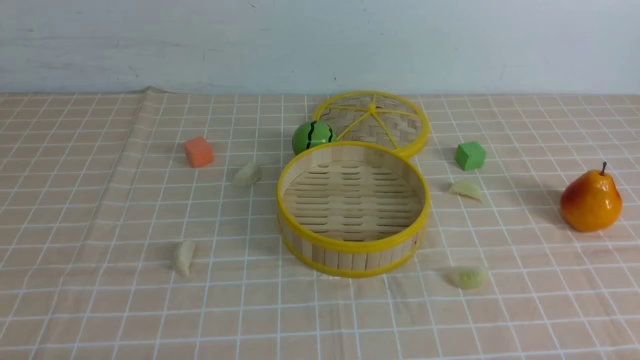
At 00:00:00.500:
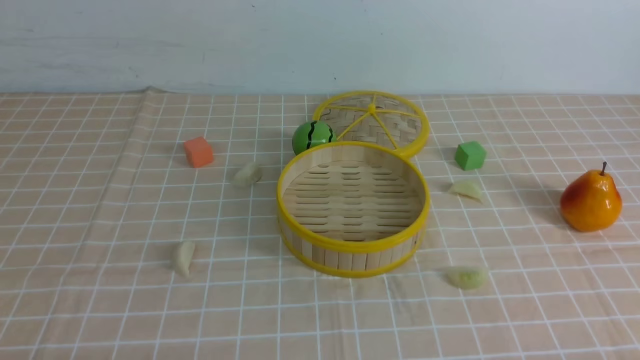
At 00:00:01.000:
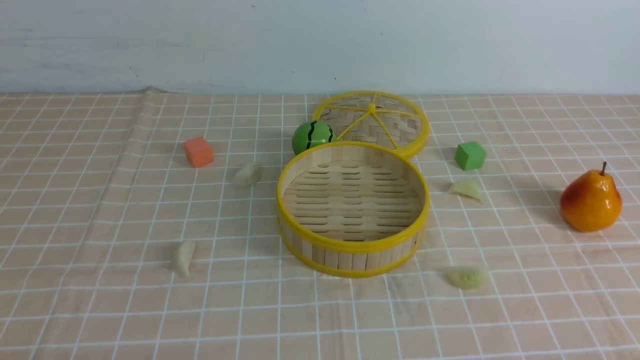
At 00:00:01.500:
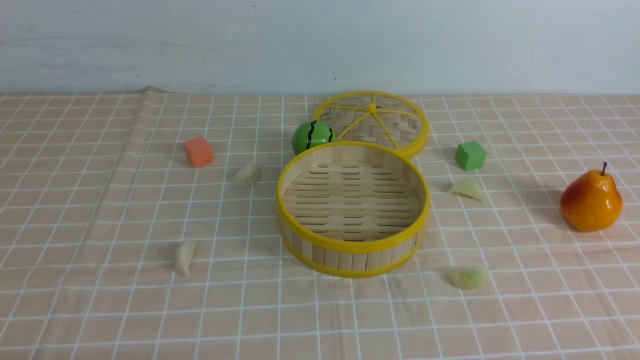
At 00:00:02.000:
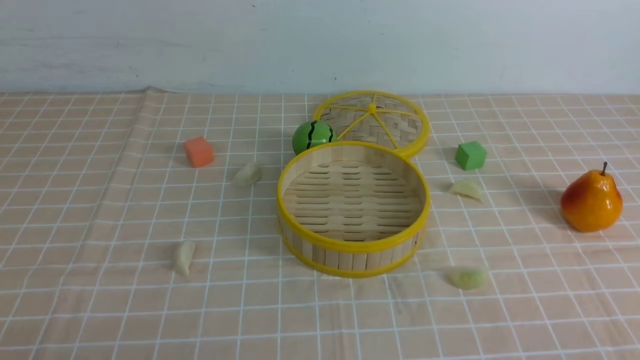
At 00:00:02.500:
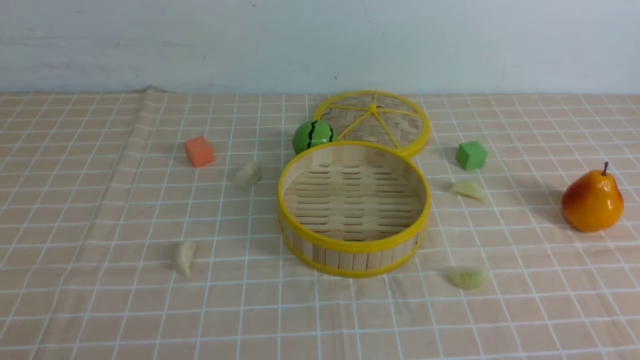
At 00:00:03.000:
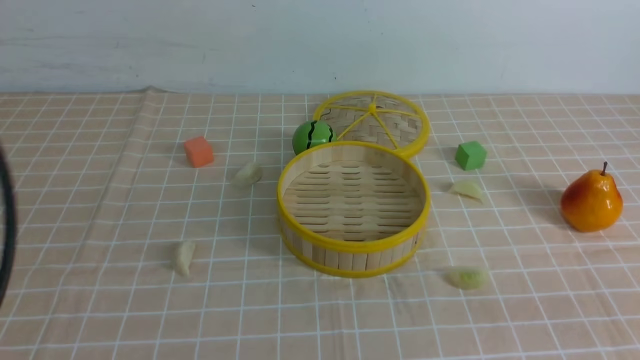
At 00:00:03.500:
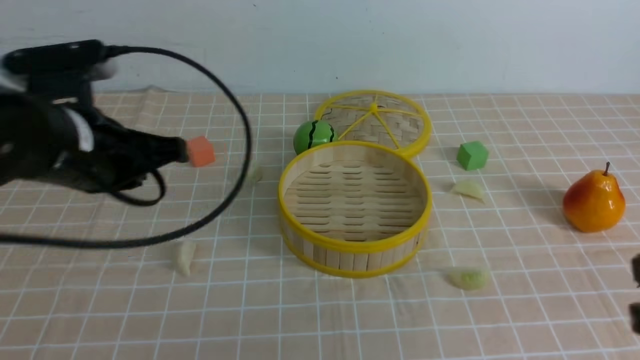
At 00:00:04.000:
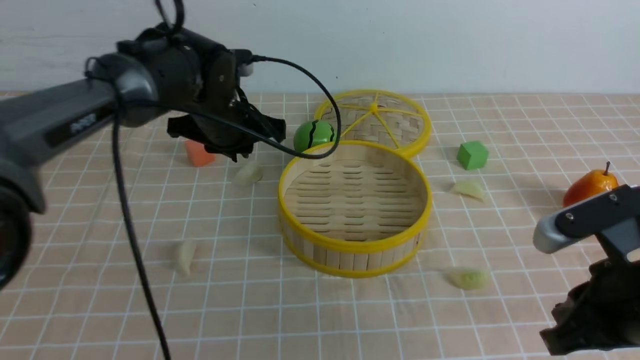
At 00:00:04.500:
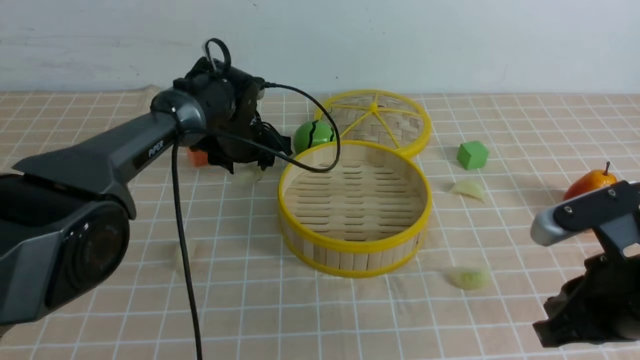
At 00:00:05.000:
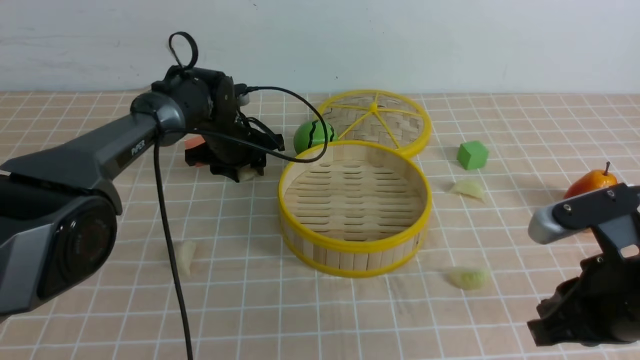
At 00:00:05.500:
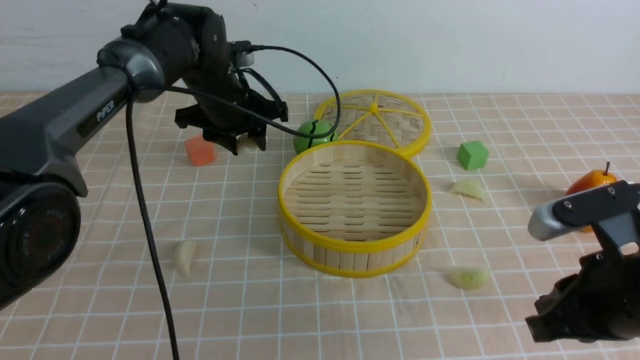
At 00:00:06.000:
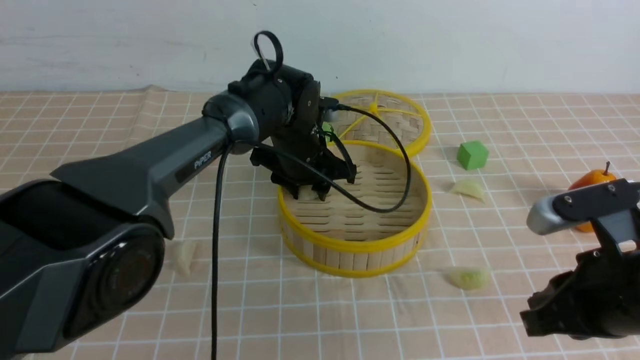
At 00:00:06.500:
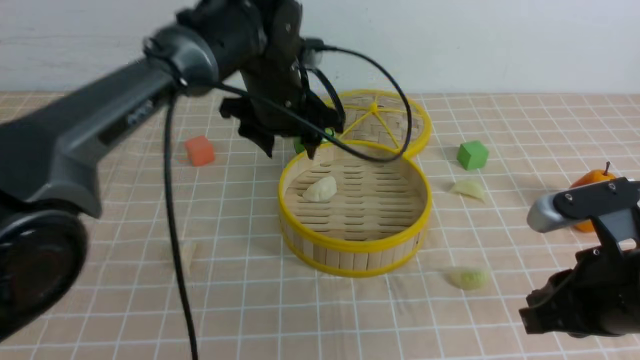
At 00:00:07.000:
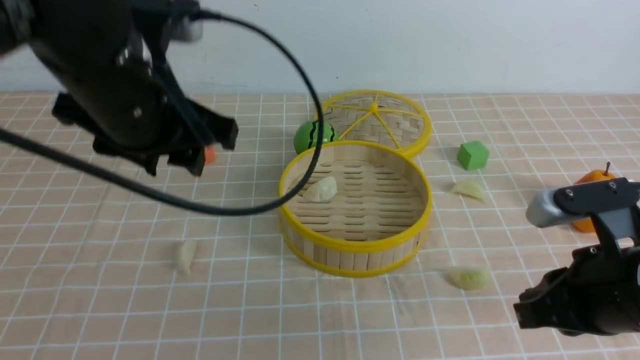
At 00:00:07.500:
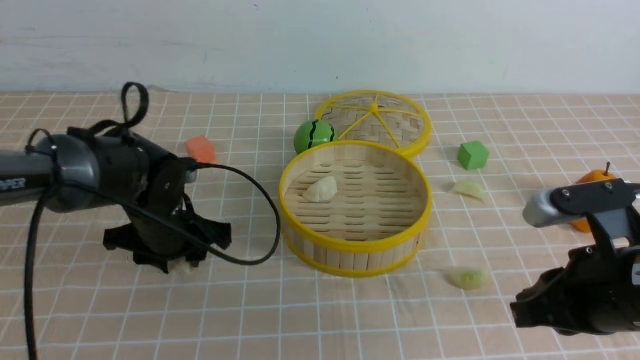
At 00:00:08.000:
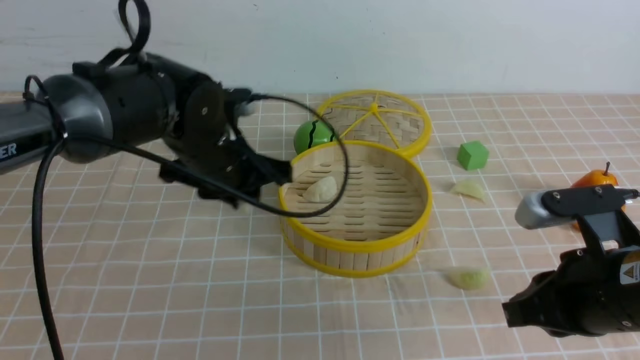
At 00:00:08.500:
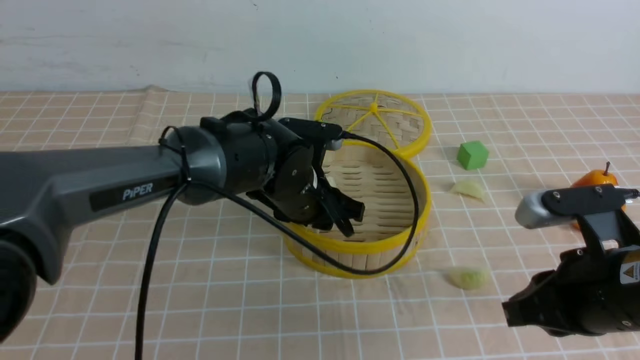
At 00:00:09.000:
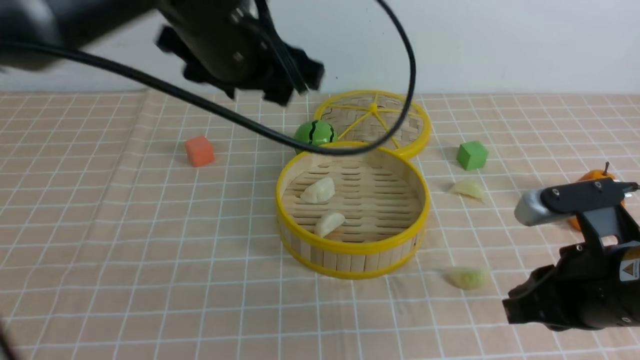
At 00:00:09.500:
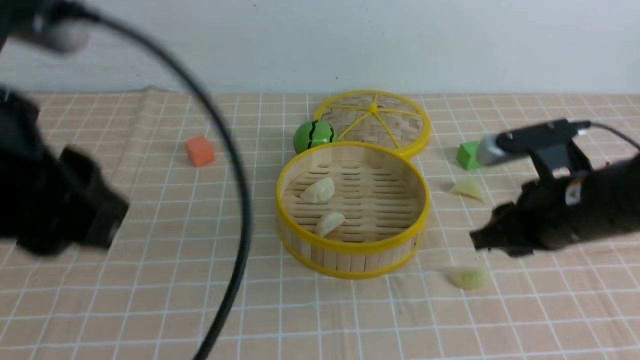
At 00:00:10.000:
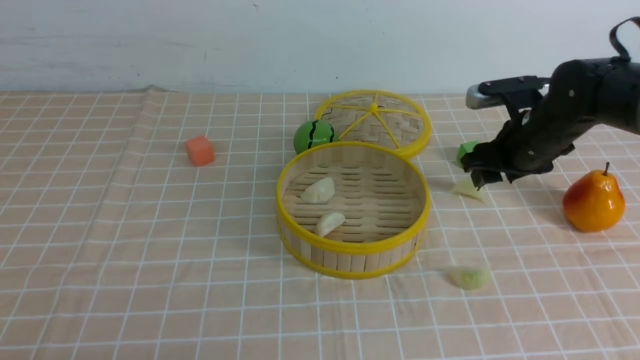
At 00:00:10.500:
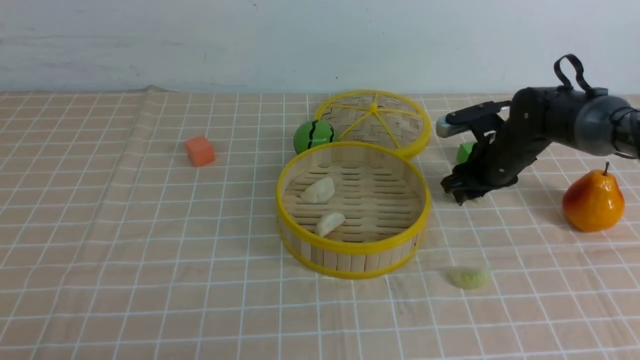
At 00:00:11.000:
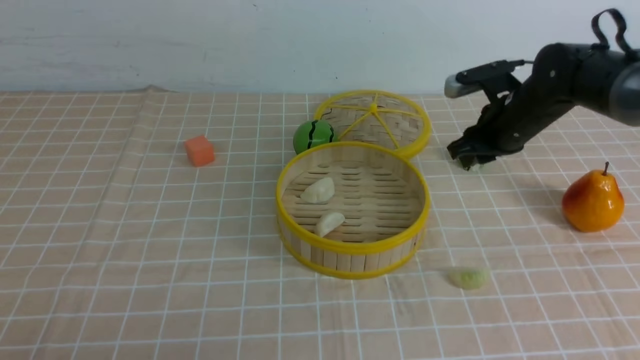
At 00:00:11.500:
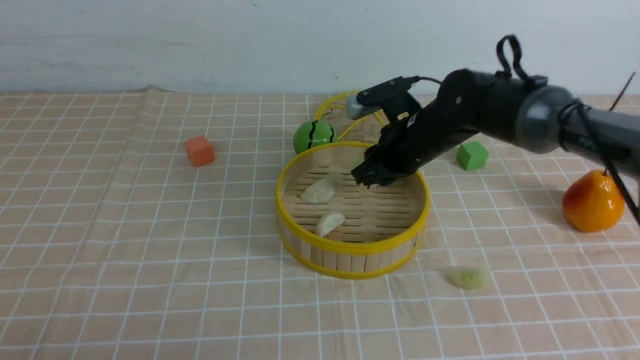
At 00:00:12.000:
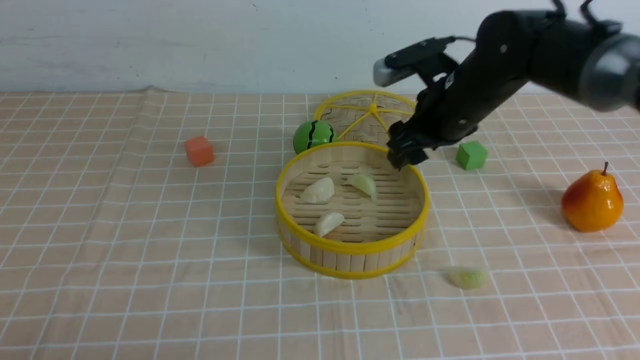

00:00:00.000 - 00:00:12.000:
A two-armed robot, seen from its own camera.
Task of the whole recording: put the dumplings into the steamer on the table with the brown tablecloth.
Step, 00:00:00.000 - 00:00:04.500: use the left arm to grab a dumpling.
Step, 00:00:05.000 - 00:00:06.500: use the left arm to put the dumpling into the steamer.
Step, 00:00:07.000 - 00:00:07.500: use the left arm to grab a dumpling.
Step, 00:00:08.000 - 00:00:08.500: use the left arm to put the dumpling into the steamer.
Step, 00:00:09.000 - 00:00:10.500: use the right arm to grab a dumpling.
Step, 00:00:11.000 - 00:00:12.000: use the right arm to put the dumpling into the steamer.
00:00:02.000 - 00:00:04.000: The right gripper is displaced forward and to the left by roughly 15 cm; the left gripper moves forward, approximately 40 cm, and closes and opens again.
00:00:04.000 - 00:00:06.000: The left gripper travels to the right by some 10 cm.
00:00:06.000 - 00:00:08.000: The left gripper swings up and down, some 15 cm each way, with 2 reversals.
00:00:08.000 - 00:00:10.000: The left gripper goes about 35 cm backward and to the left, and opens and closes again; the right gripper moves forward, some 25 cm, and opens up.
00:00:10.000 - 00:00:12.000: The right gripper heads to the left, covering roughly 10 cm, and closes, then reopens.

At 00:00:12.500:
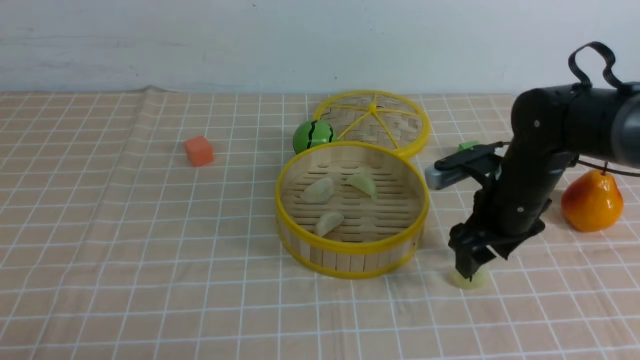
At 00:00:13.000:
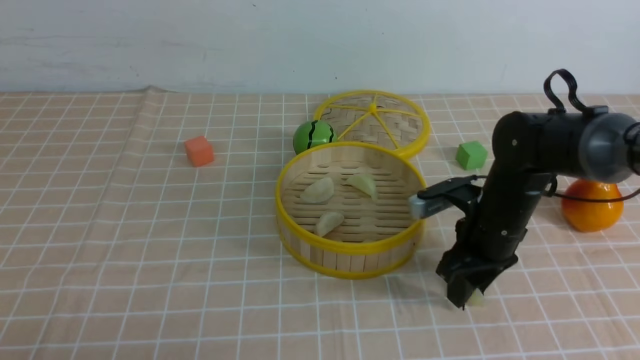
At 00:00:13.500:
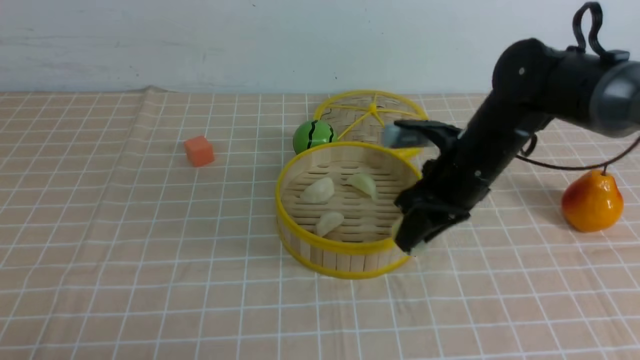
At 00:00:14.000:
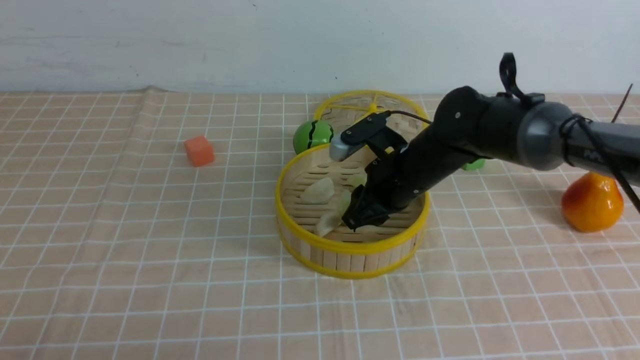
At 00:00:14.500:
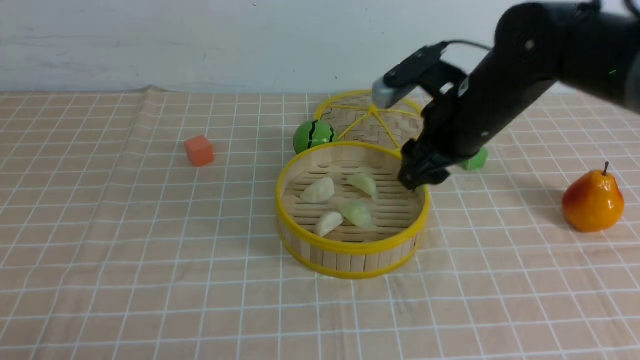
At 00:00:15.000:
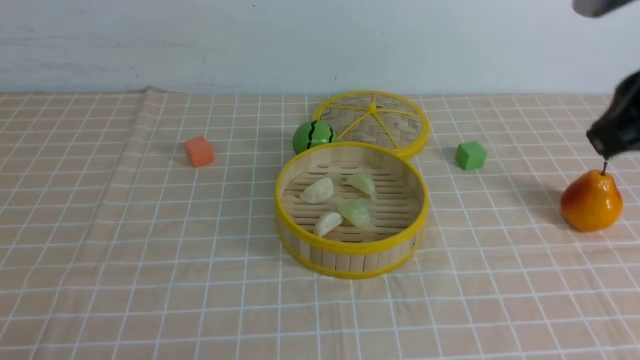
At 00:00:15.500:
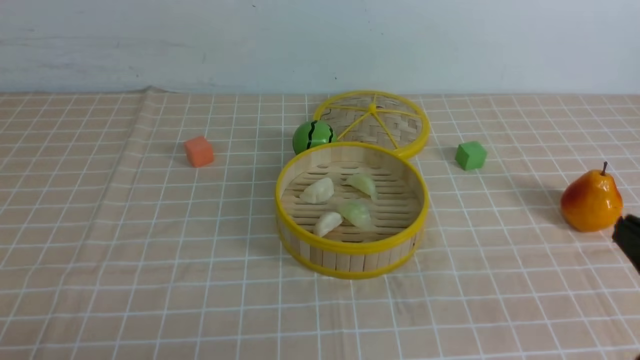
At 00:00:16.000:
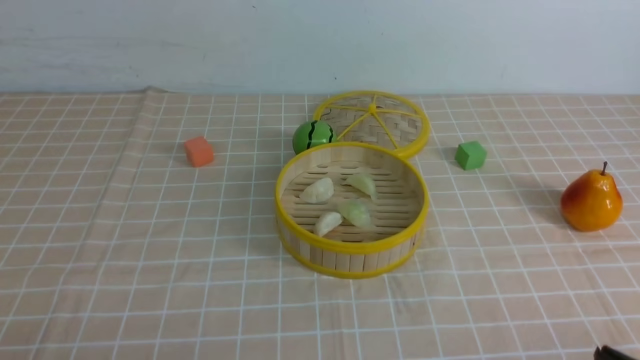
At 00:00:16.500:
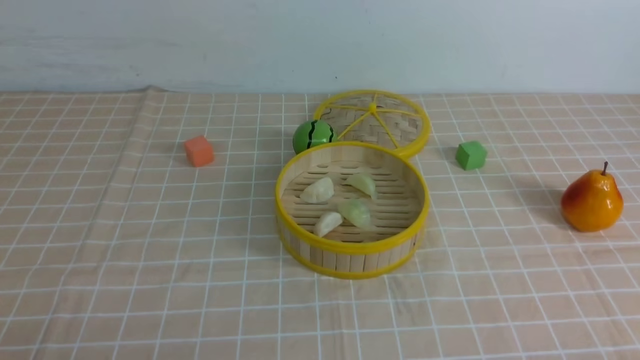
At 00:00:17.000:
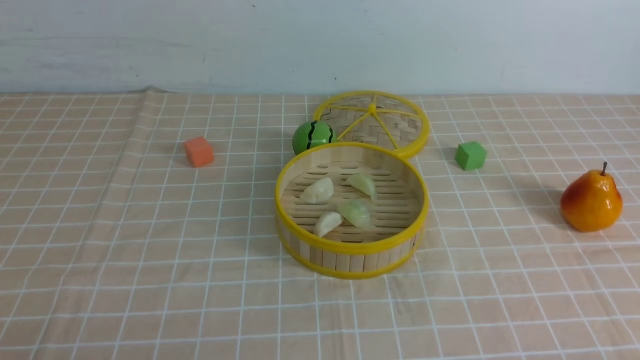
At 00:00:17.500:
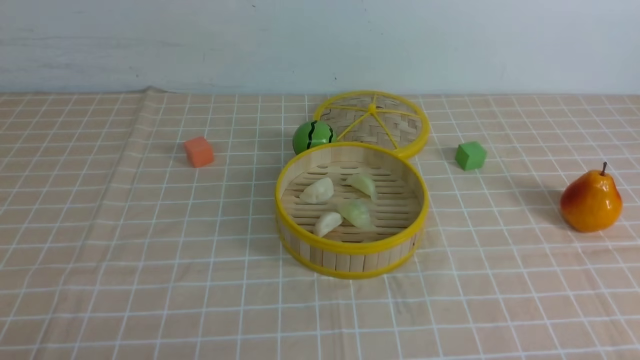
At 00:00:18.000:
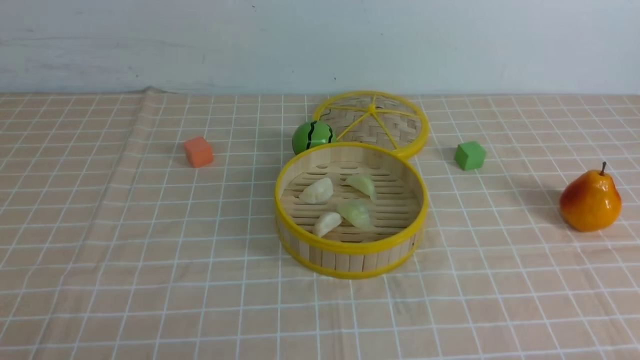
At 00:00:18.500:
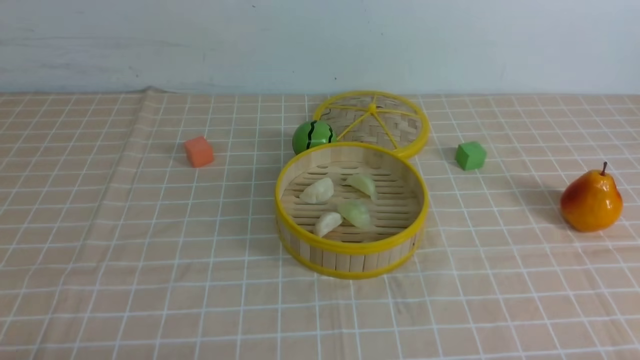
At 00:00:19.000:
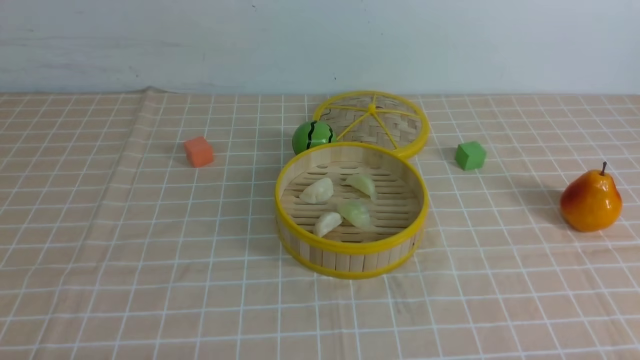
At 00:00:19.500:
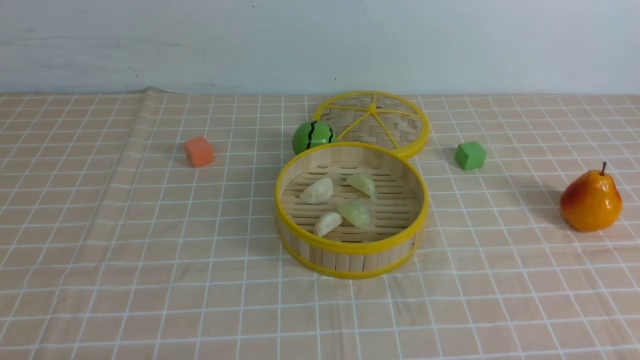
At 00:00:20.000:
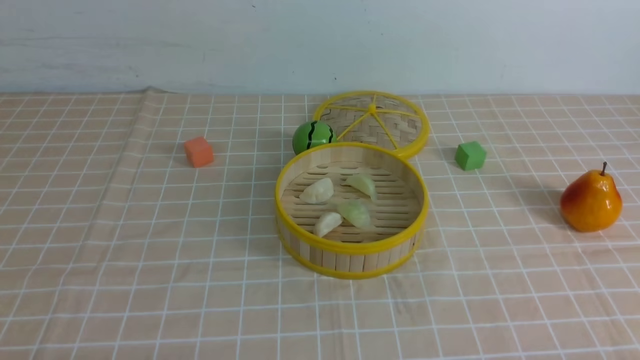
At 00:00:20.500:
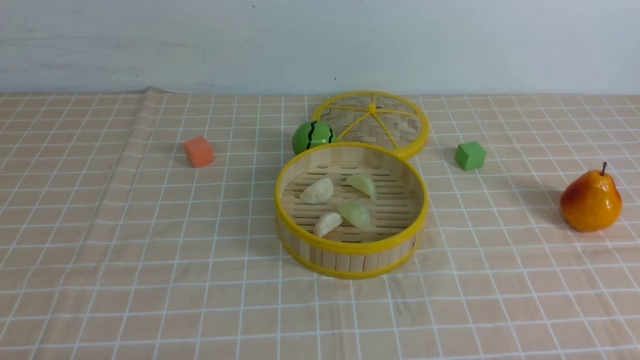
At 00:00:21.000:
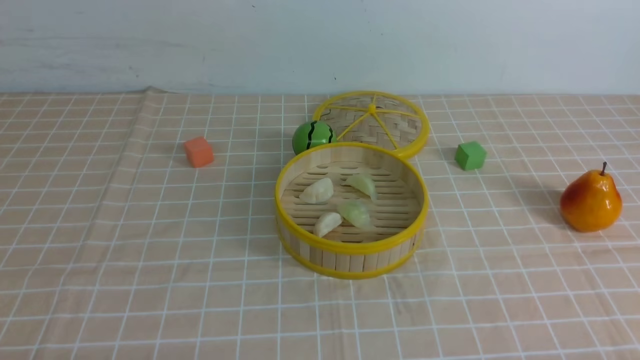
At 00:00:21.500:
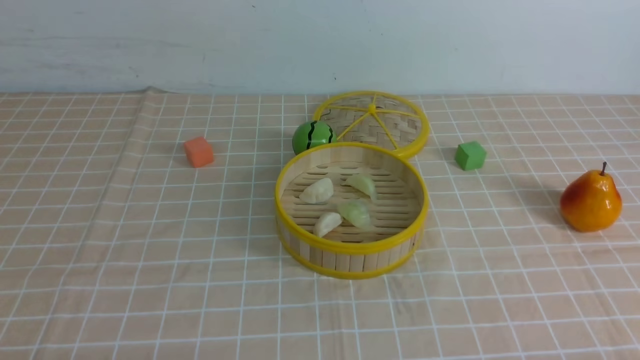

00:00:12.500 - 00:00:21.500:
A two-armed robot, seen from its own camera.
Task of the whole recording: put the dumplings into the steamer on the table with the brown tablecloth.
Step, 00:00:12.500 - 00:00:13.000: use the right arm to grab a dumpling.
Step, 00:00:13.500 - 00:00:14.000: use the right arm to put the dumpling into the steamer.
00:00:12.500 - 00:00:14.500: The right gripper moves upward, approximately 10 cm, and closes, then reopens.
00:00:14.500 - 00:00:17.000: The right gripper moves backward, to the right and downward, some 40 cm, and closes its fingers.
00:00:19.500 - 00:00:21.500: The two grippers keep their place.
